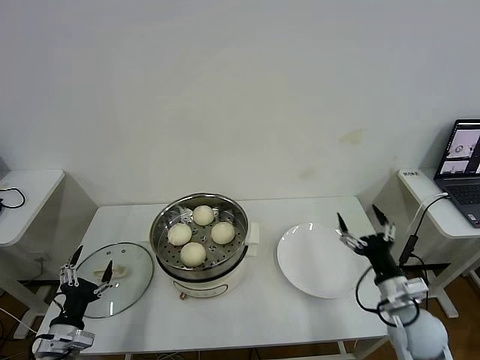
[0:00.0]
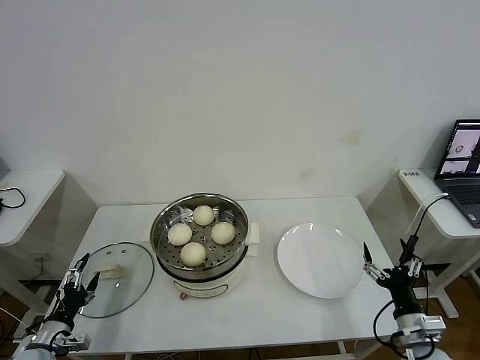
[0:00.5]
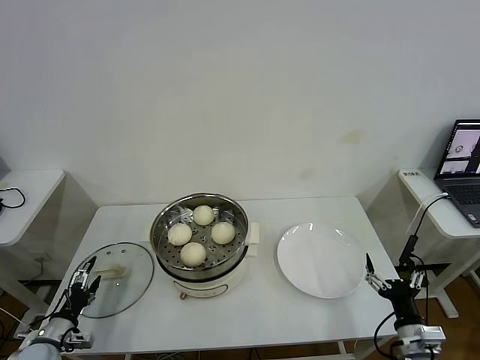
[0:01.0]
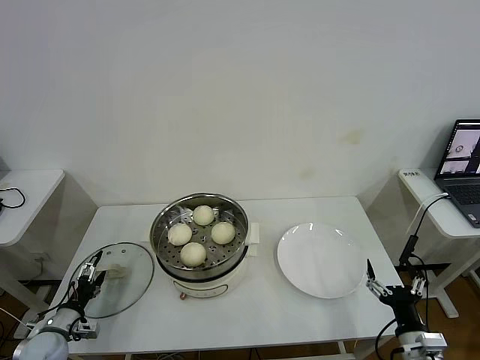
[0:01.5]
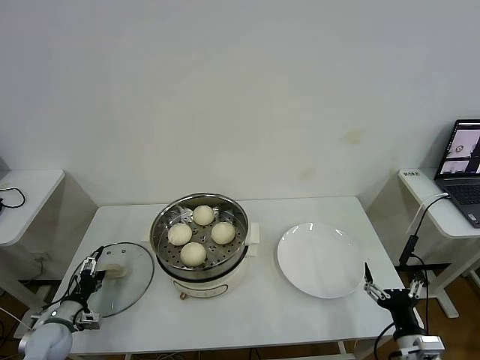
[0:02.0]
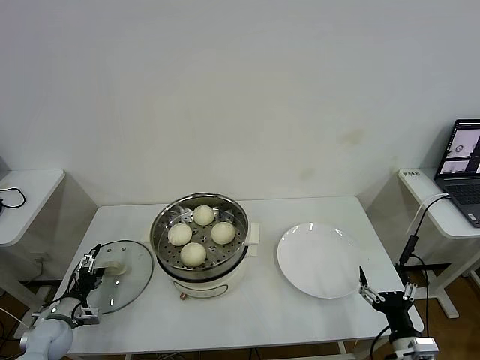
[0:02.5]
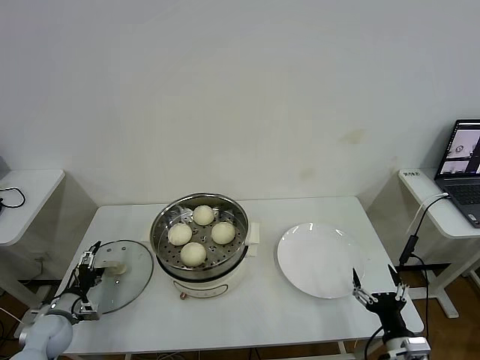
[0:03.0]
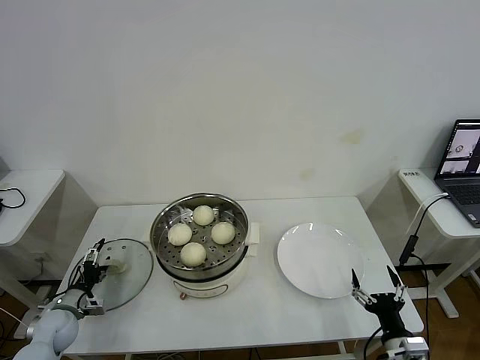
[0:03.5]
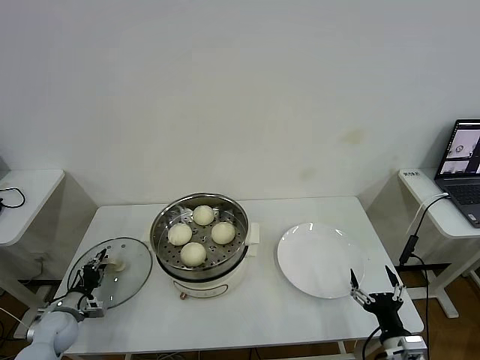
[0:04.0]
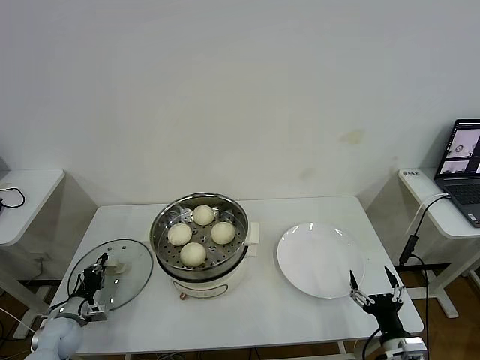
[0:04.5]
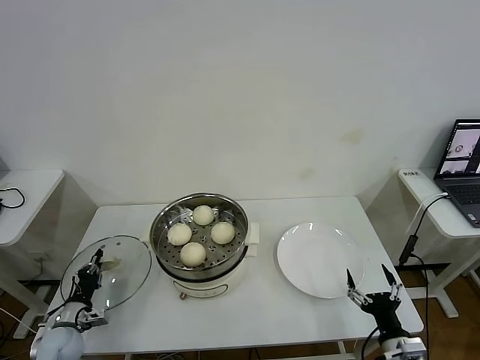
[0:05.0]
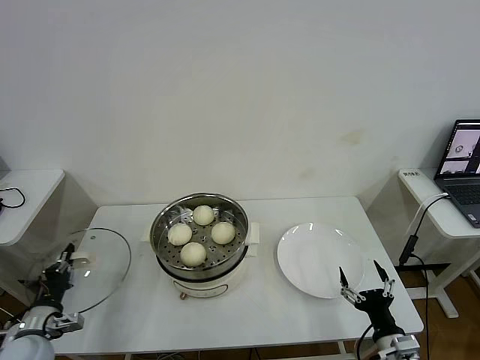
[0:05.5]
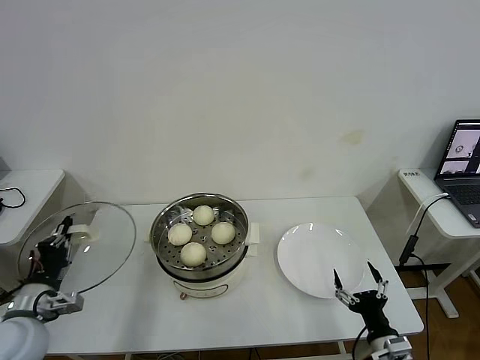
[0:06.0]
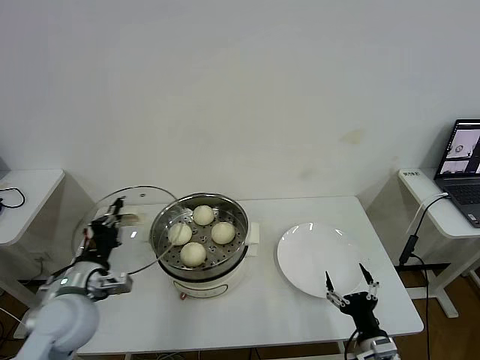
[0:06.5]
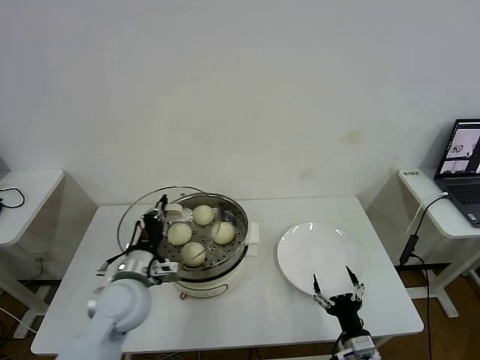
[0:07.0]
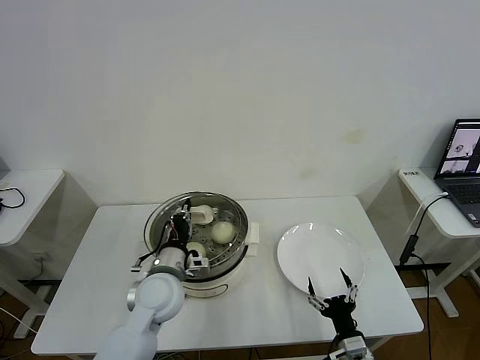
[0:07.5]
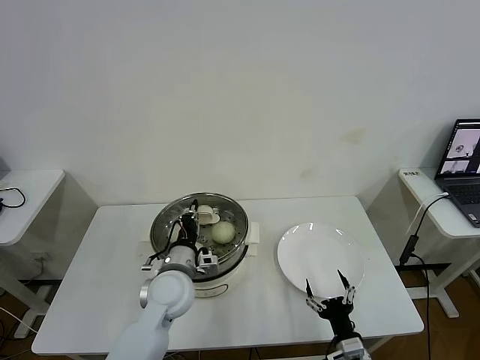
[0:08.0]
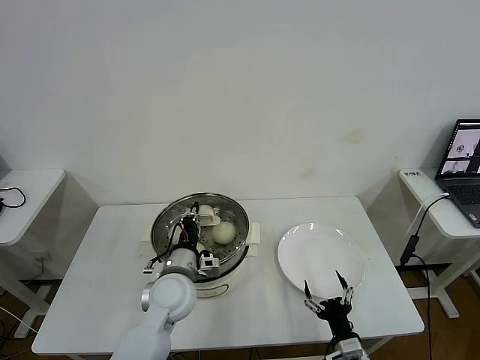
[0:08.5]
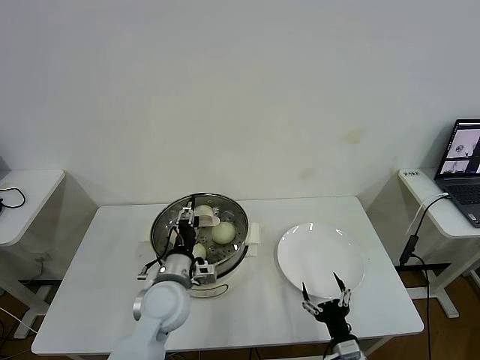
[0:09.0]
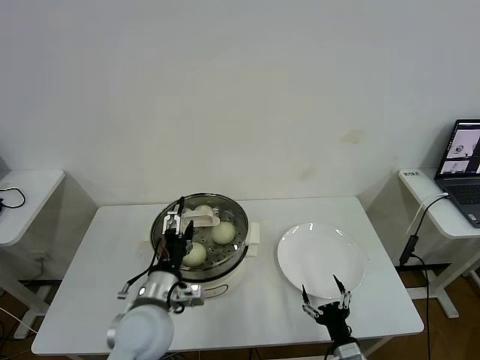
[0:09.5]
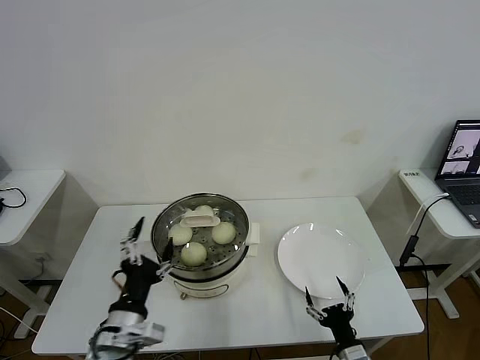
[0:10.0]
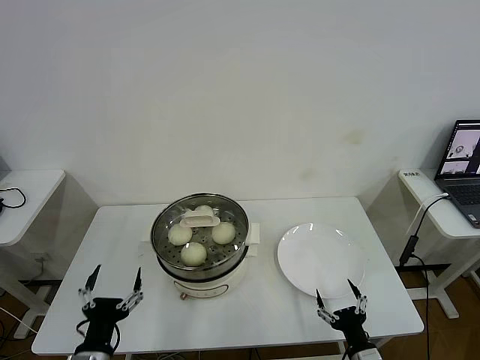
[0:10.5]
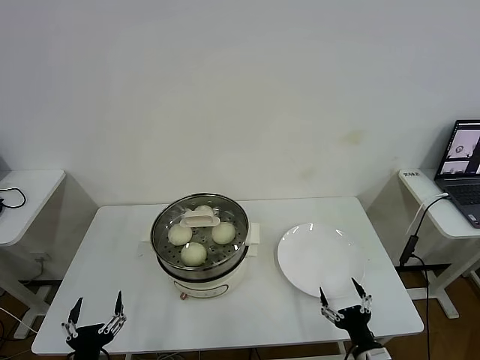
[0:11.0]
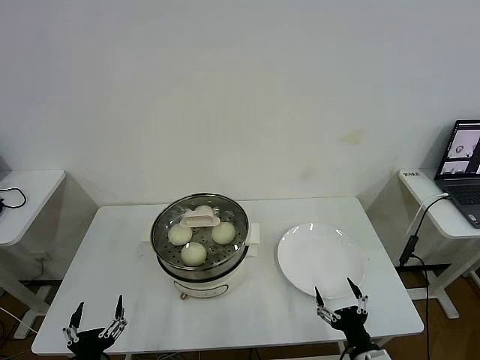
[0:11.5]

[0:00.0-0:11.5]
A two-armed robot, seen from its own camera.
Task of the whole recording: take steamed baozi put them in steamer then cover it.
Step, 0:00.0 to 0:04.5: Grasp the pot lid with left gripper.
Step, 0:05.0 to 0:09.0: Place the pot lid on the steamer with left gripper.
0:00.0 to 0:02.0: The right gripper is displaced backward and downward by some 10 cm, while the left gripper heads forward, to the left and downward, covering some 15 cm.
0:02.0 to 0:04.0: The left gripper closes its fingers.
0:04.0 to 0:06.0: The left gripper moves upward and backward, about 20 cm, and closes up.
0:06.0 to 0:07.5: The left gripper is displaced to the right and forward by about 25 cm, while the right gripper goes roughly 5 cm to the left.
0:07.5 to 0:09.5: The left gripper heads backward, covering approximately 5 cm, and opens.
0:09.5 to 0:11.5: The left gripper goes some 25 cm backward, to the left and downward.
